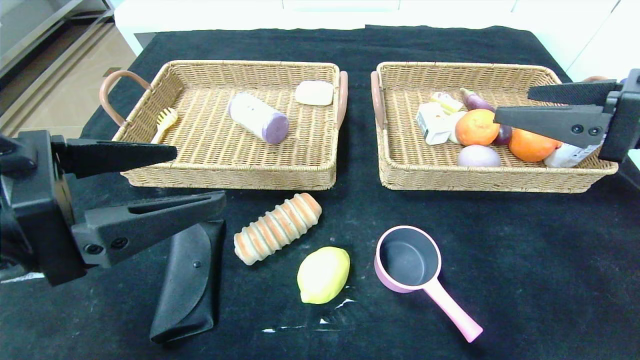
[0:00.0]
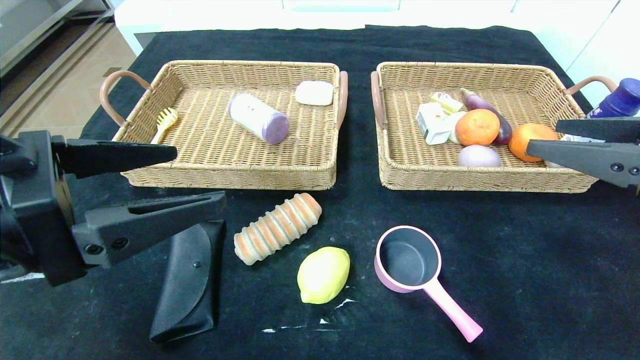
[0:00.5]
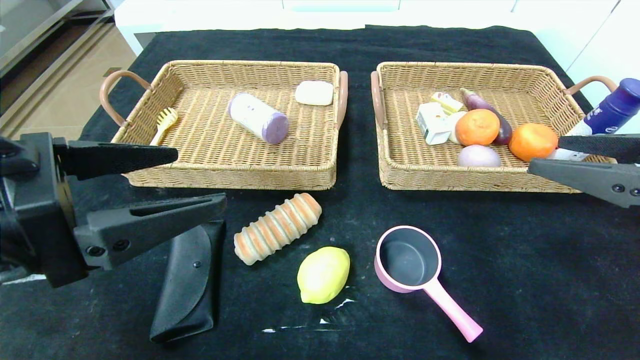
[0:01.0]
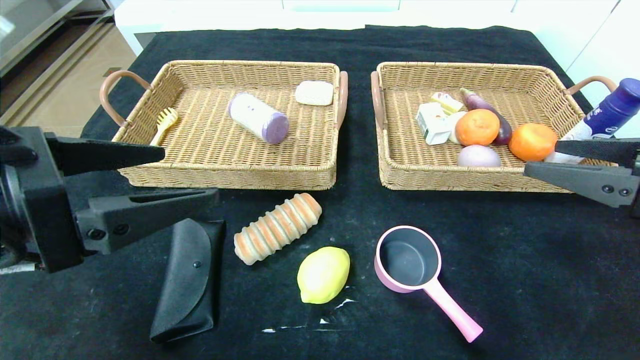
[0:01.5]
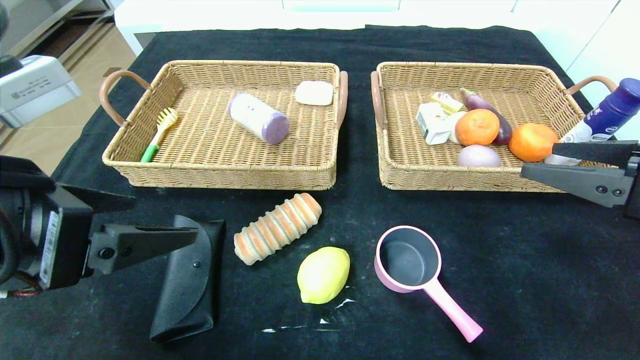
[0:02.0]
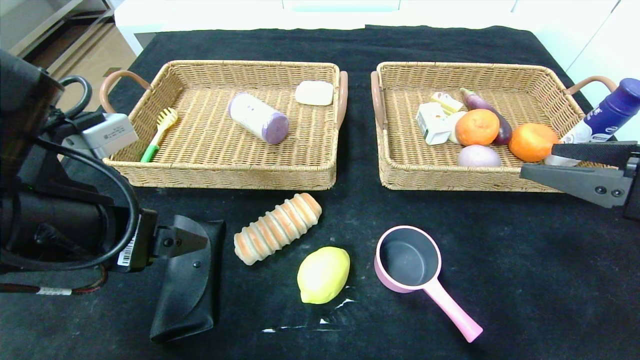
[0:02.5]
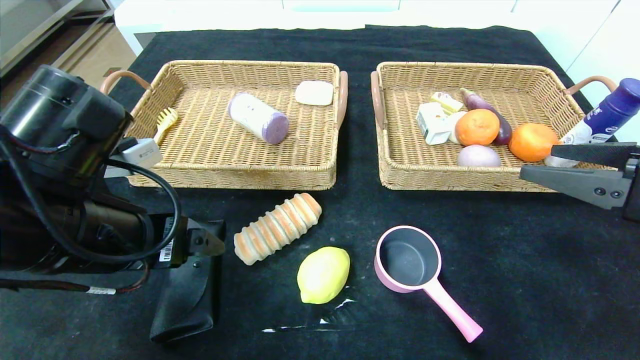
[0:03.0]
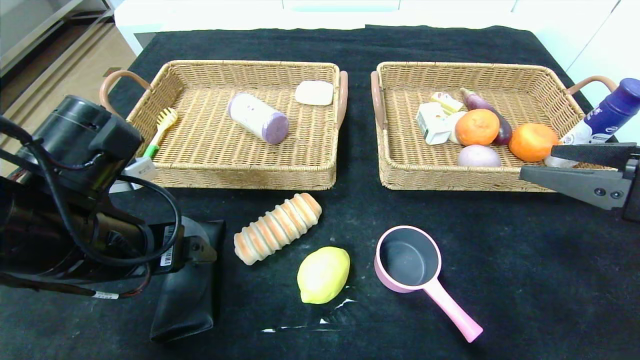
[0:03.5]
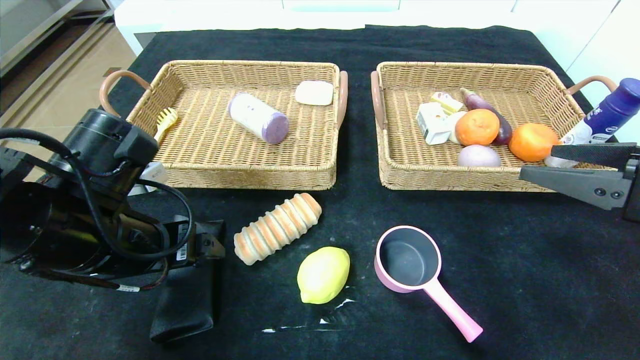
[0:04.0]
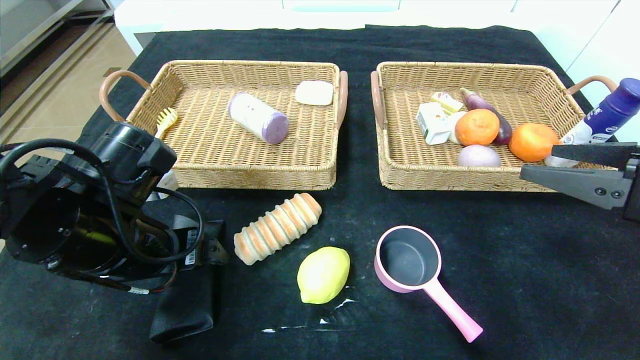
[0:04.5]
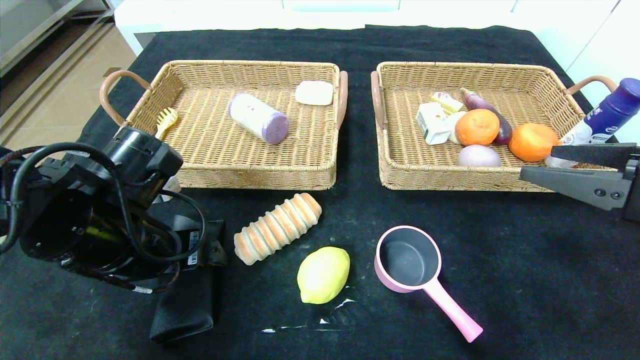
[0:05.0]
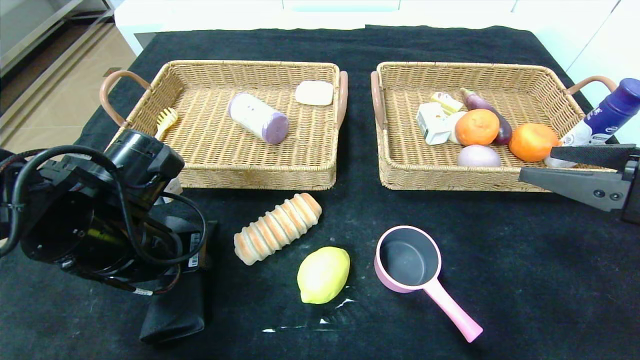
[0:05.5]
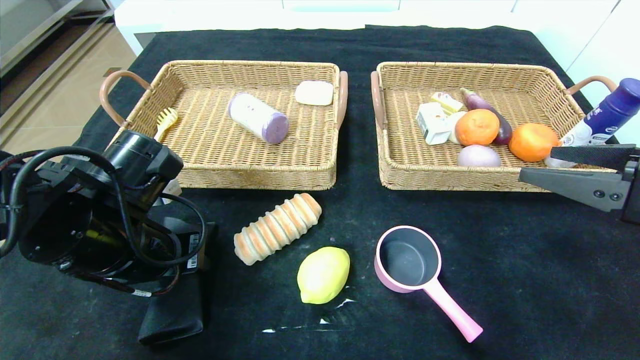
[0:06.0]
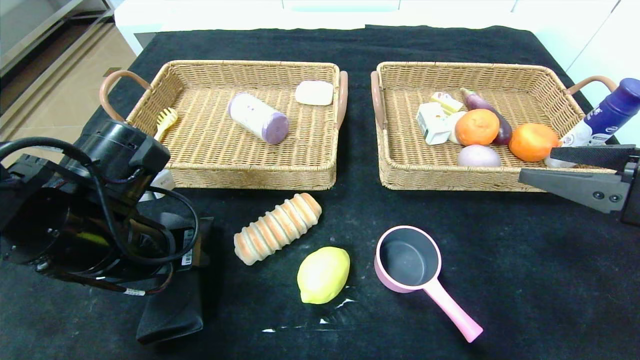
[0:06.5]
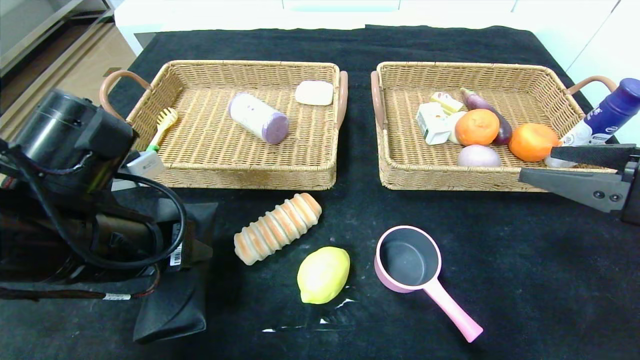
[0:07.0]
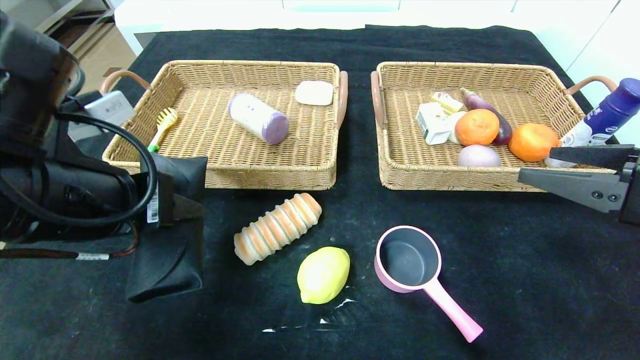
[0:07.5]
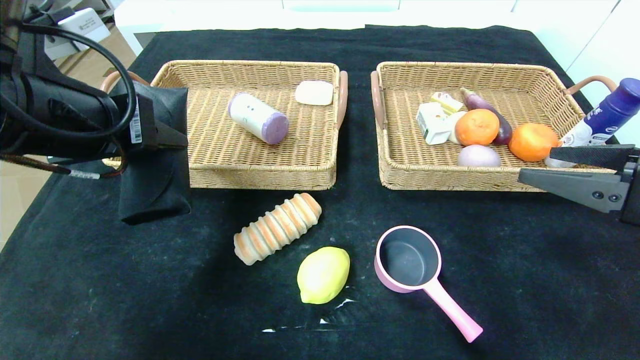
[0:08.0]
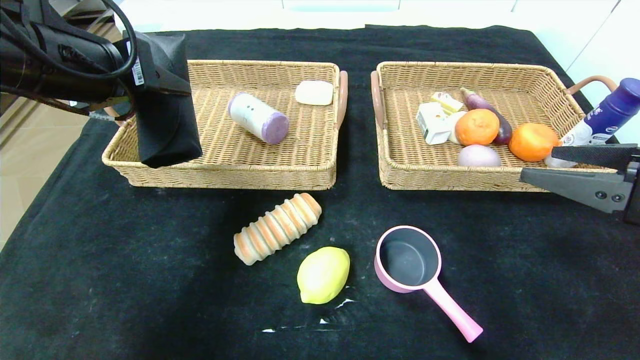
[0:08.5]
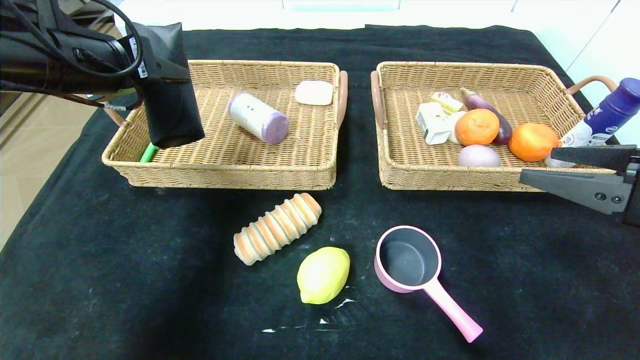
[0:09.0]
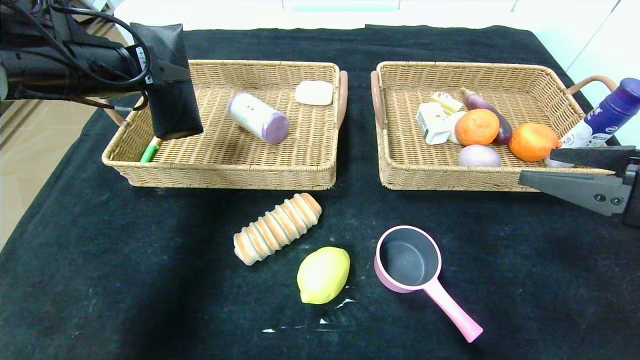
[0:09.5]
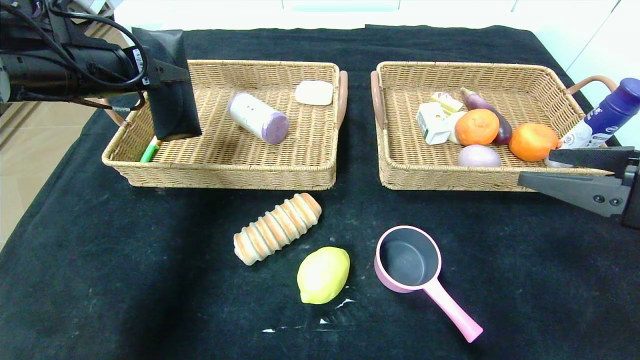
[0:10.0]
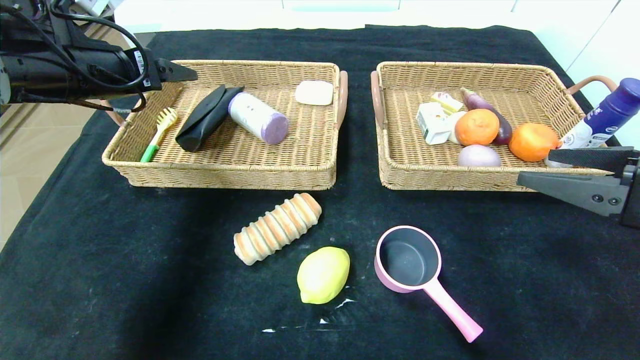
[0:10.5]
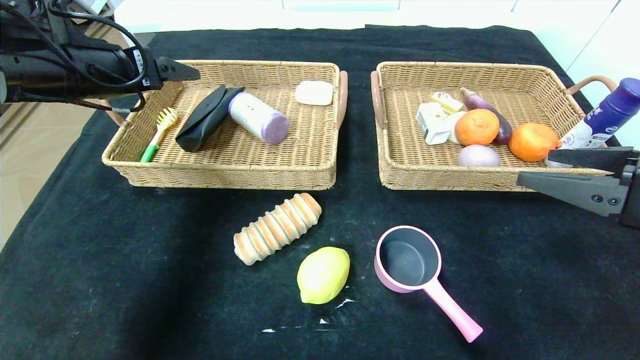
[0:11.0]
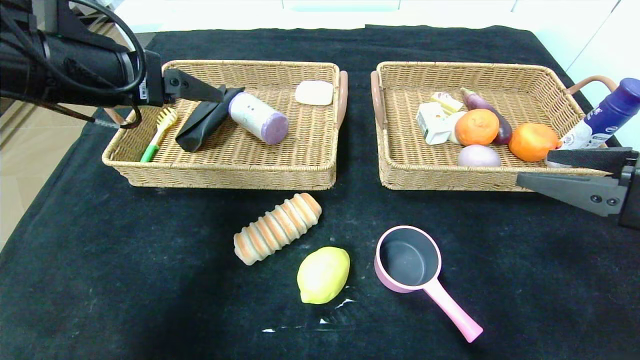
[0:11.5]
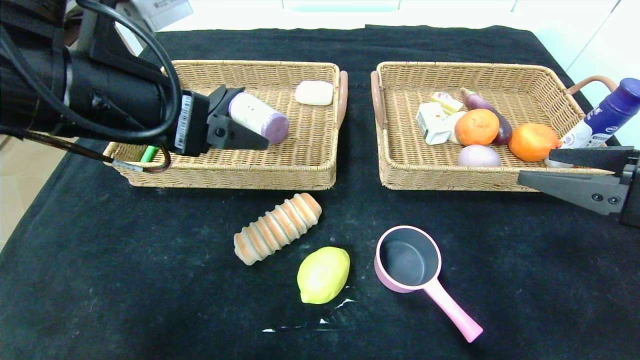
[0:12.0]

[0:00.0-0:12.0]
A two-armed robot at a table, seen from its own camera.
Step, 0:00.0 to 0:10.0: Grasp the glasses case and put it in the left basket.
0:00.0 to 0:02.0: The right gripper changes place by roughly 5 cm.
0:02.0 to 0:04.0: The left gripper goes about 10 cm forward and downward.
0:04.0 to 0:06.0: The left gripper closes.
0:06.0 to 0:08.0: The left gripper travels upward by roughly 15 cm.
0:08.0 to 0:10.0: The left gripper goes some 15 cm forward and to the left.
0:10.0 to 0:12.0: The left gripper moves backward and to the right, roughly 15 cm, and opens.

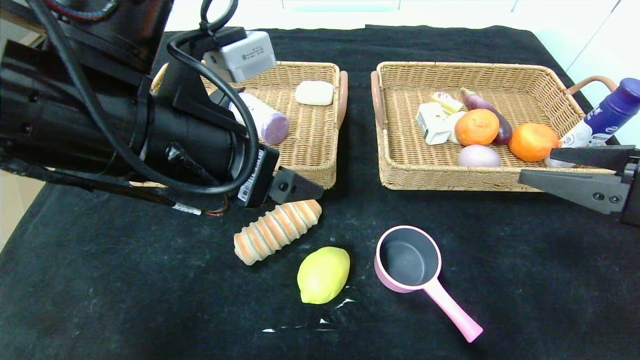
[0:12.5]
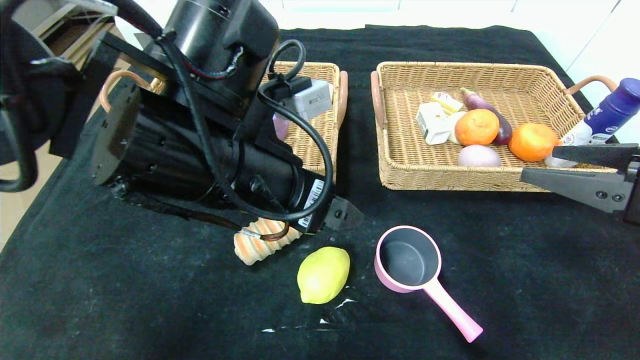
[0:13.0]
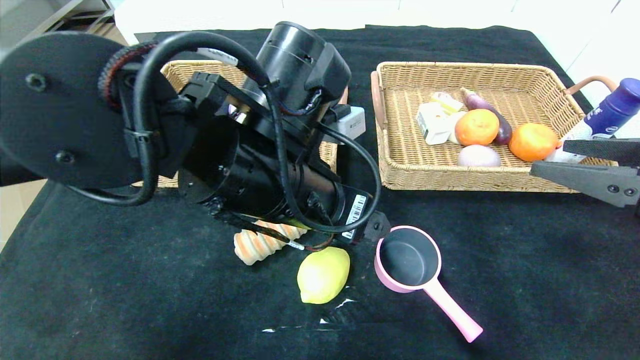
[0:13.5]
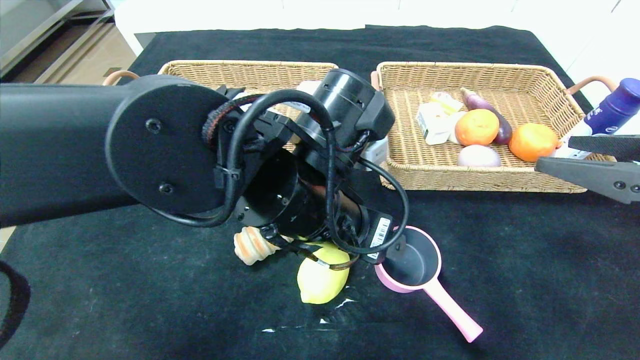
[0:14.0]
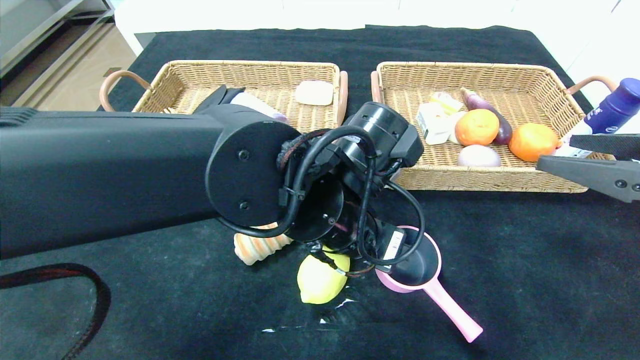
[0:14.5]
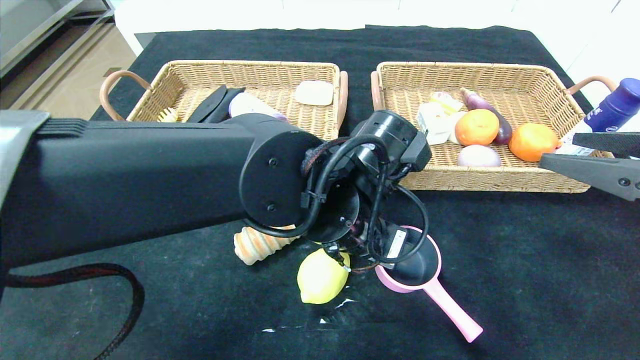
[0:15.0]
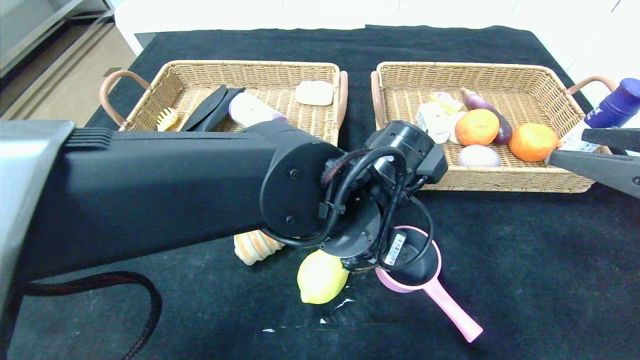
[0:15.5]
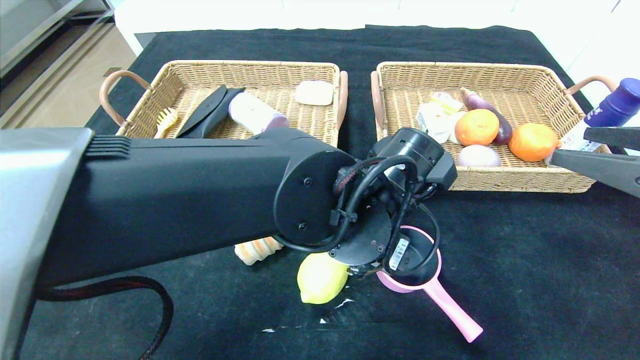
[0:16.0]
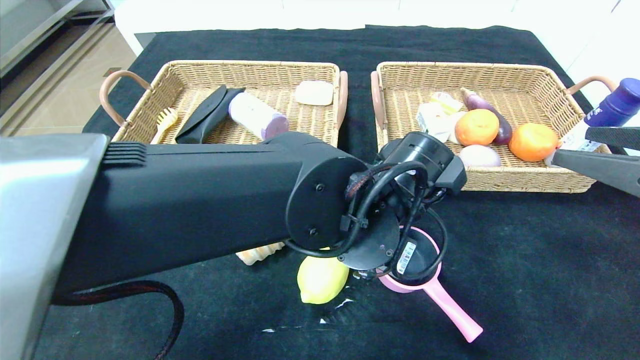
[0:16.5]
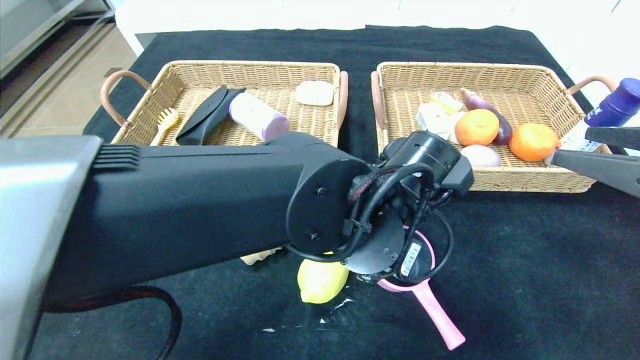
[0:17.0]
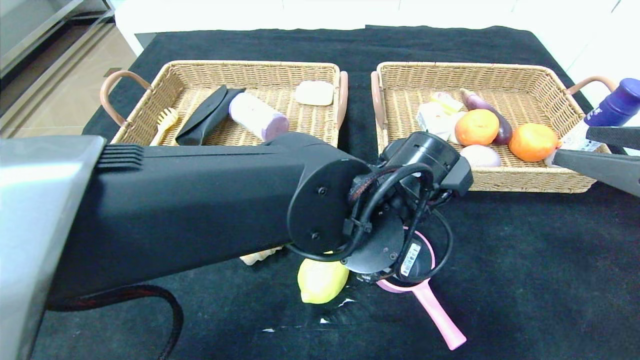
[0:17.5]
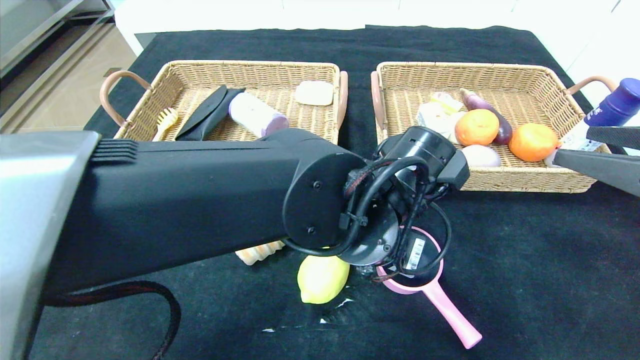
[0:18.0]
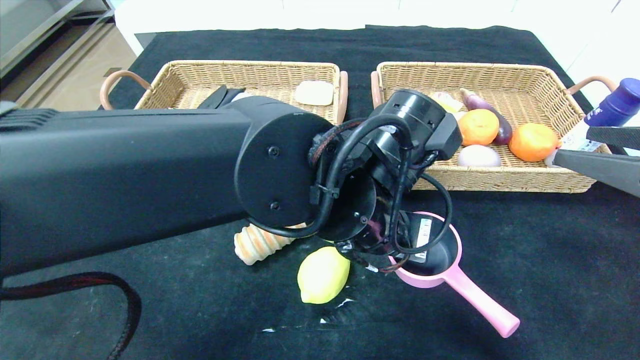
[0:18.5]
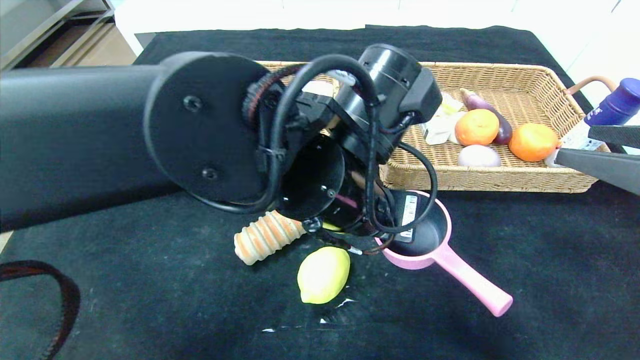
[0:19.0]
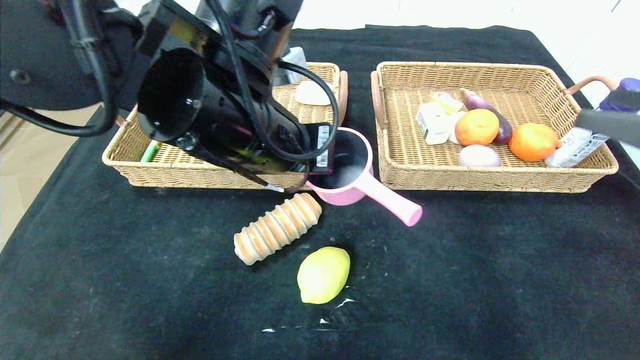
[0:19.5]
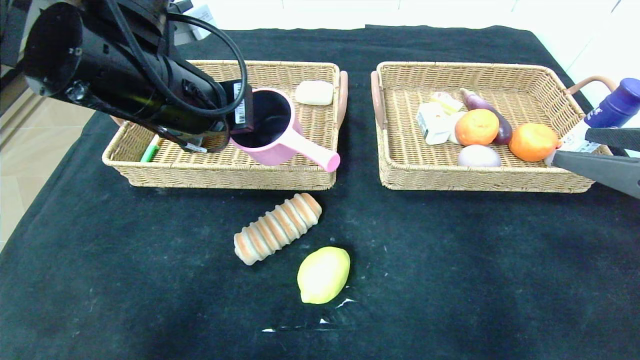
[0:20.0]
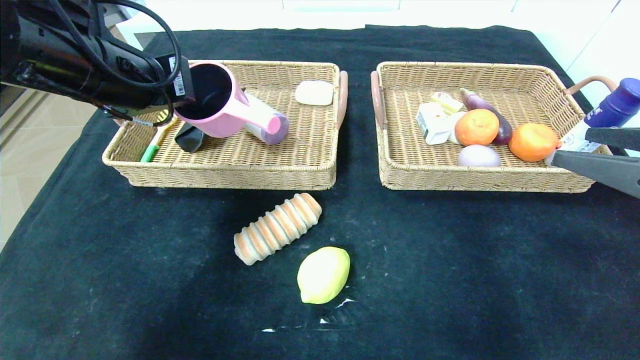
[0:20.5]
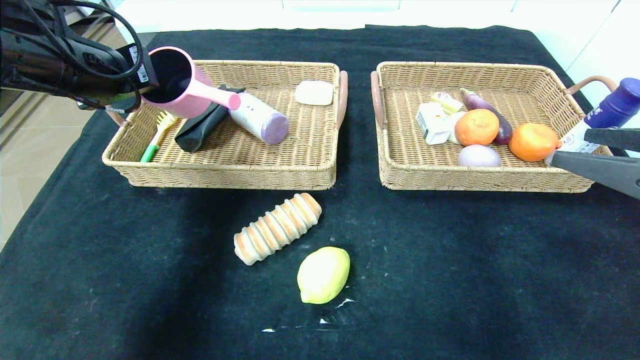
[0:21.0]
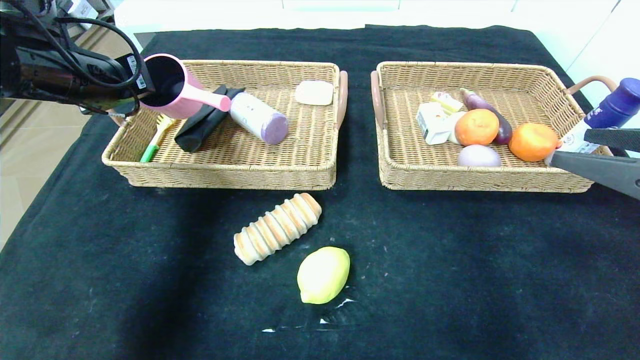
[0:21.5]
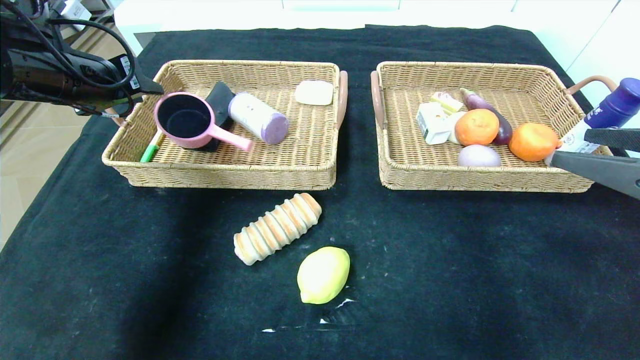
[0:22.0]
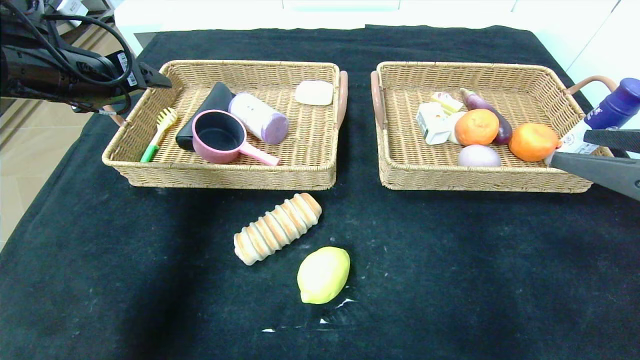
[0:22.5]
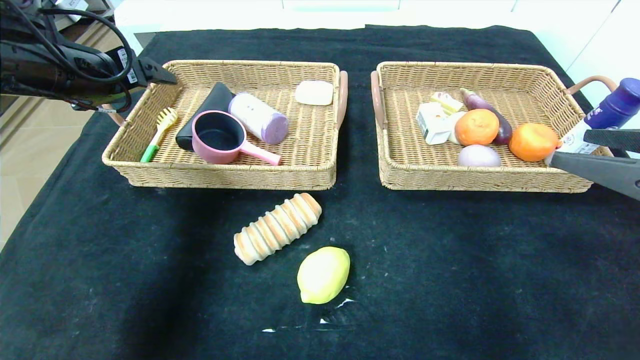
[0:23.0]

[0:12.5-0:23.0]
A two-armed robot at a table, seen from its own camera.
Step, 0:12.5 to 0:22.5: Grasp the pink pot and put it in the left basket.
0:12.5 to 0:14.5: The left gripper heads to the right and downward, covering about 15 cm.
0:16.5 to 0:19.0: The left gripper travels upward by about 5 cm, and closes up.
0:19.0 to 0:21.0: The left gripper travels to the left by about 30 cm.
0:21.0 to 0:23.0: The left gripper opens.
